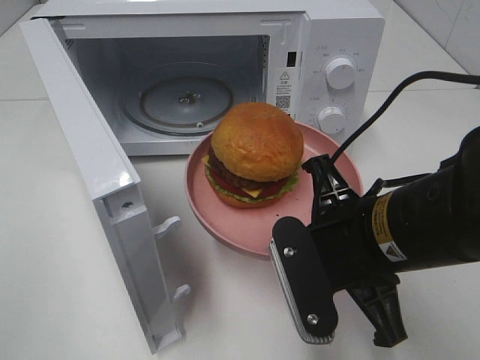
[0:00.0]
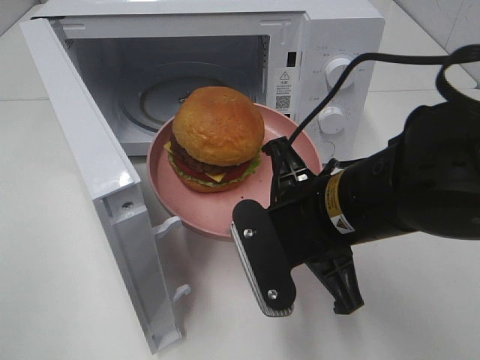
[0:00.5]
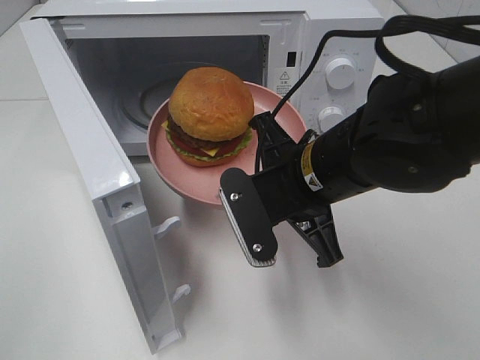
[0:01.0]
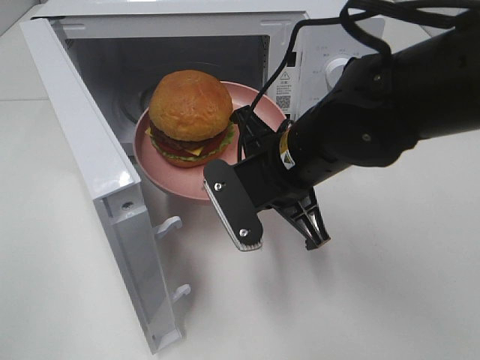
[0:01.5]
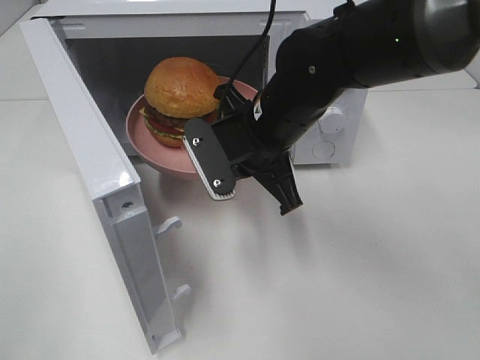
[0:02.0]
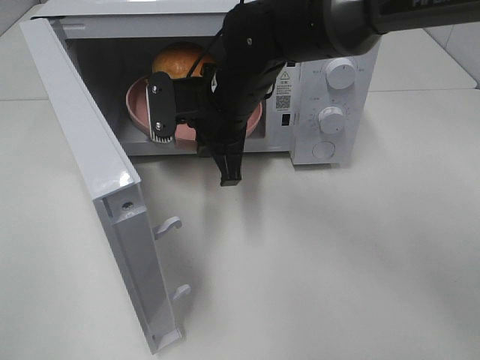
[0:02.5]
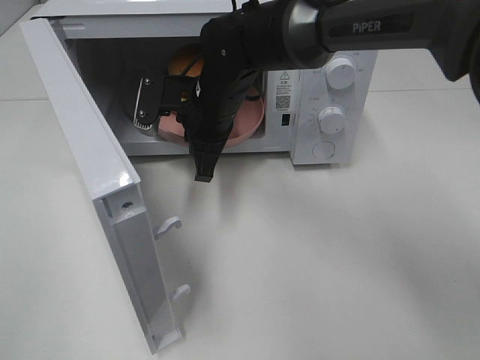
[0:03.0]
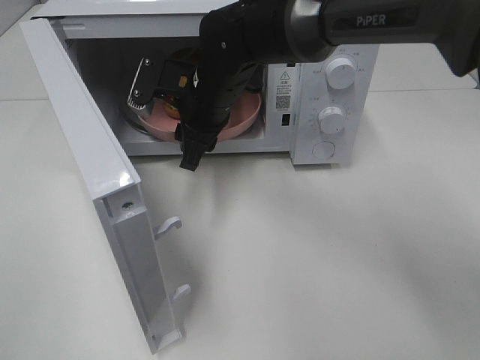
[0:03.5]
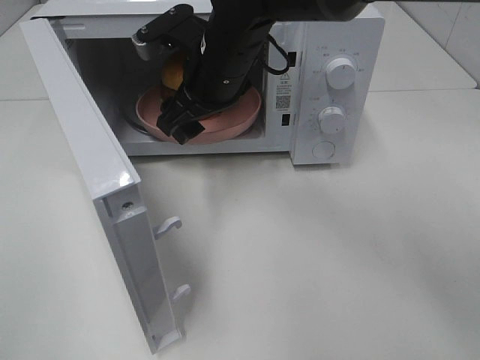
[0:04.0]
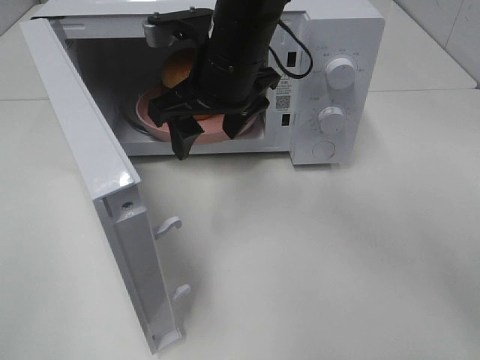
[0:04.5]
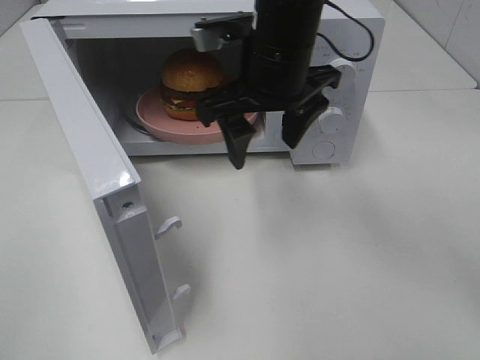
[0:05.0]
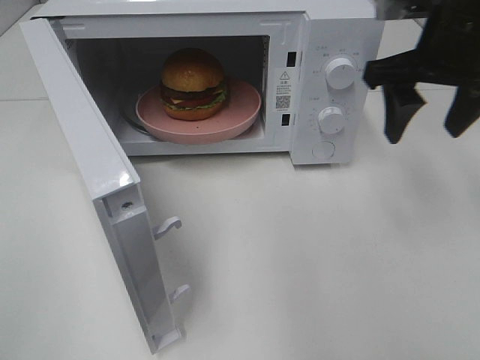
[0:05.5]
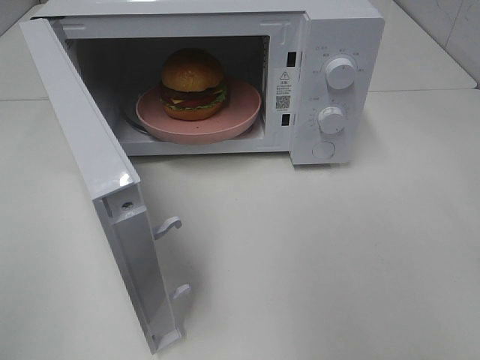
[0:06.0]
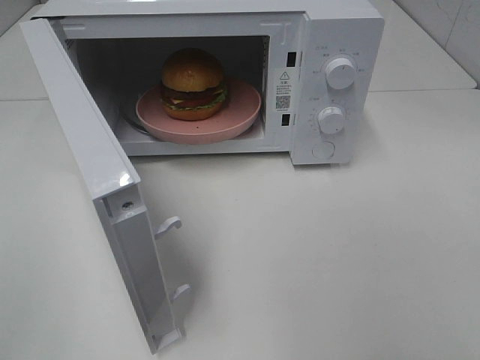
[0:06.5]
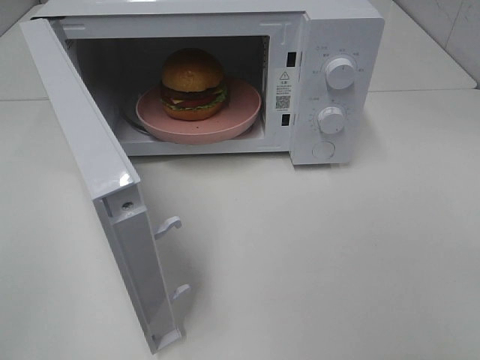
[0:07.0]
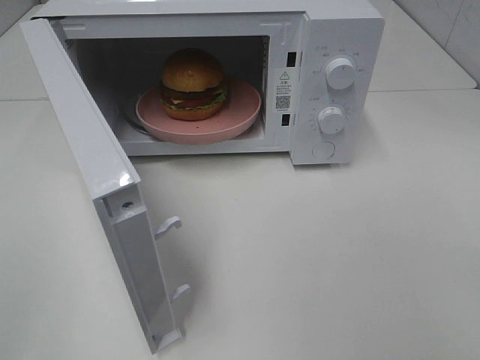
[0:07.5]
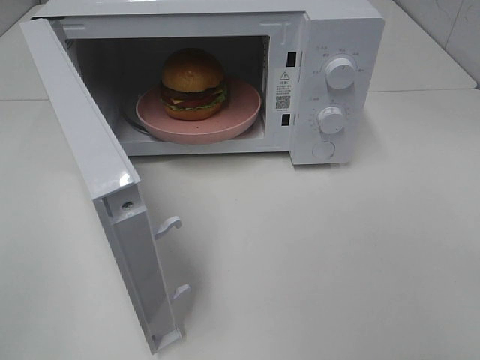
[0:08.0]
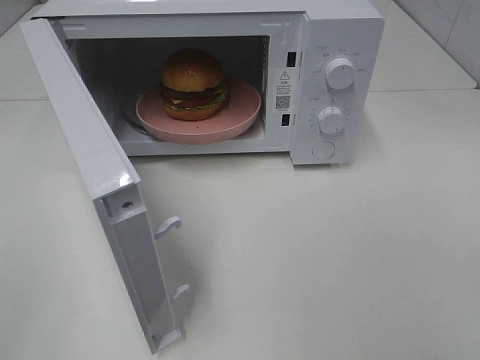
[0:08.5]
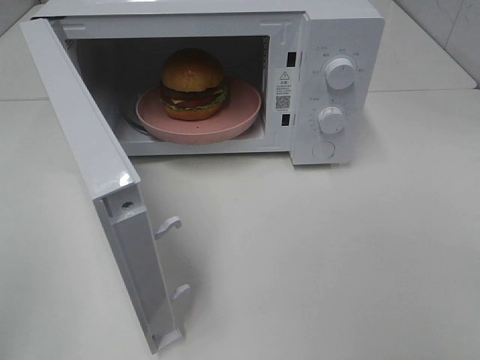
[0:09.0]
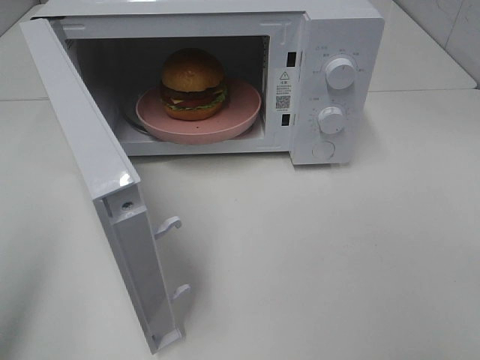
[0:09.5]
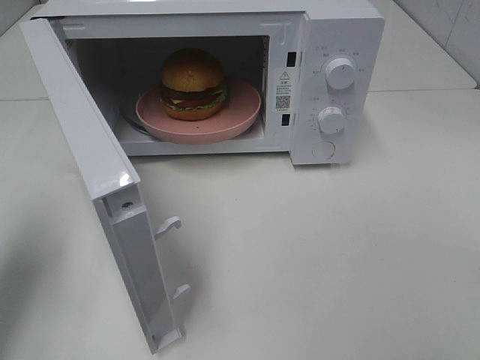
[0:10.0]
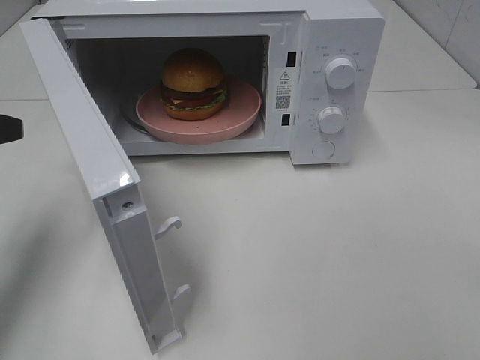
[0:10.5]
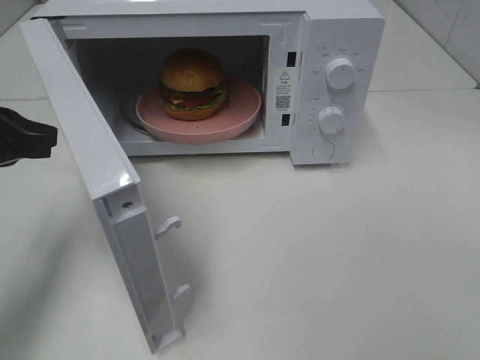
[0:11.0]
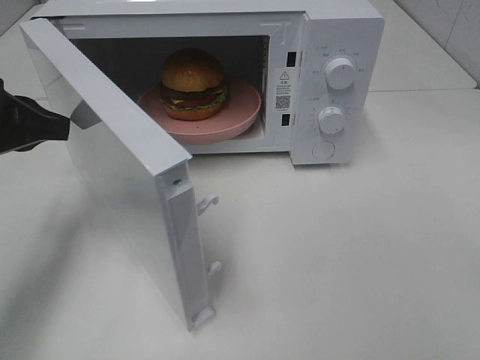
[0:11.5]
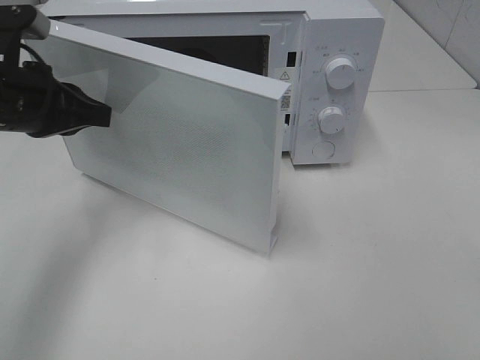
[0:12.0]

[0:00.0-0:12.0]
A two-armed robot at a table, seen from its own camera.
Task of the whole recording: Heat the burger.
Step, 0:00.0 to 0:03.0: Right hand: place the plate in the microwave.
0:00.0 to 0:02.0: The right gripper travels forward and to the left by about 15 cm.
0:02.0 to 0:04.0: The right gripper shifts some 10 cm forward and to the left, and opens.
0:04.0 to 0:06.0: The right gripper heads to the right, backward and upward, covering roughly 35 cm.
0:08.0 to 0:10.0: The left gripper travels forward by roughly 20 cm.
0:10.0 to 0:12.0: The left gripper heads forward and to the right, covering approximately 15 cm.

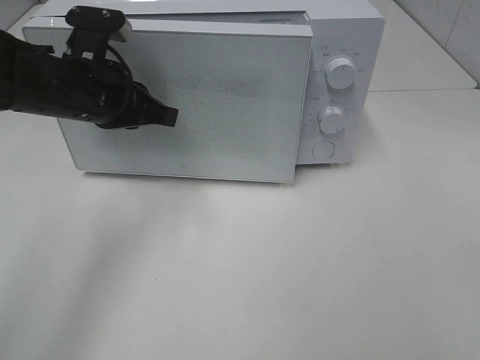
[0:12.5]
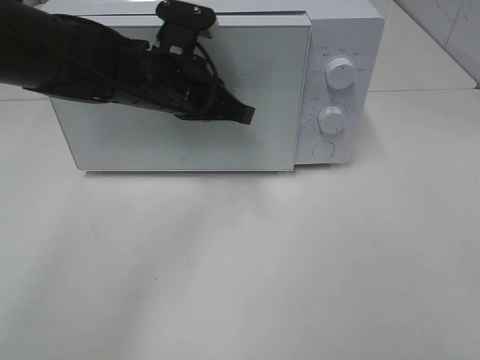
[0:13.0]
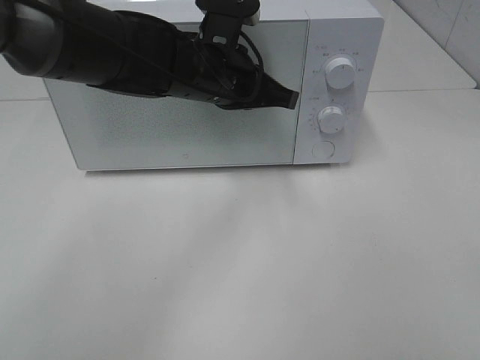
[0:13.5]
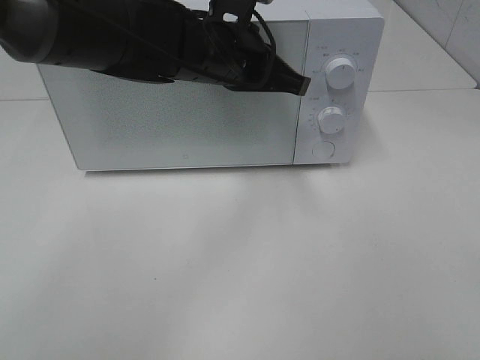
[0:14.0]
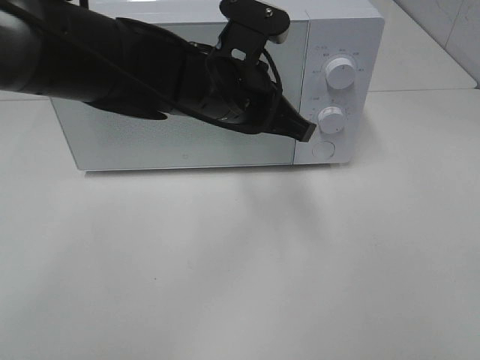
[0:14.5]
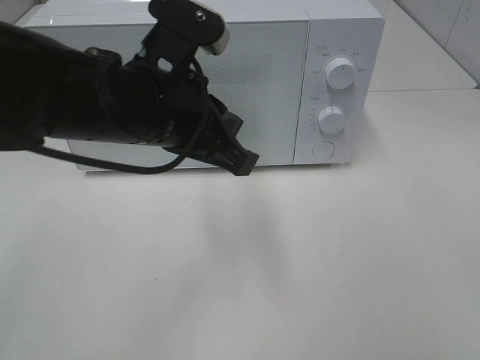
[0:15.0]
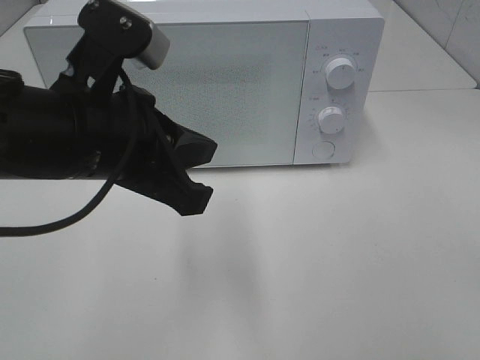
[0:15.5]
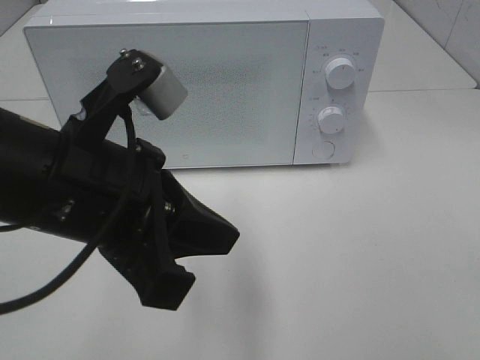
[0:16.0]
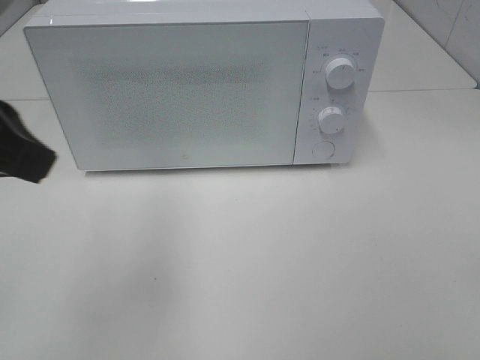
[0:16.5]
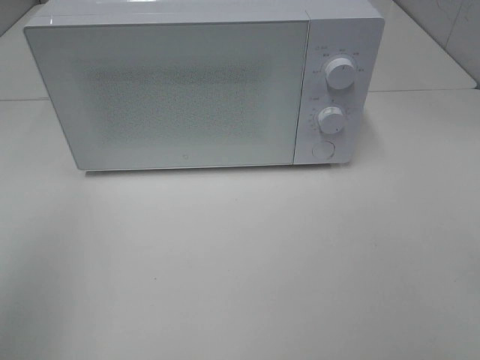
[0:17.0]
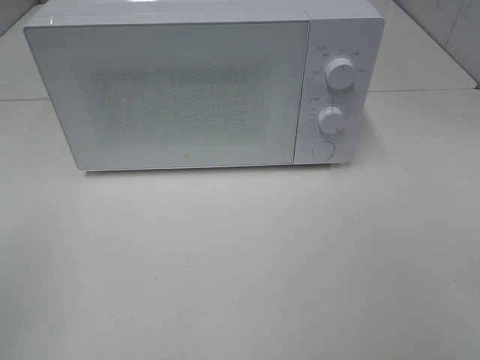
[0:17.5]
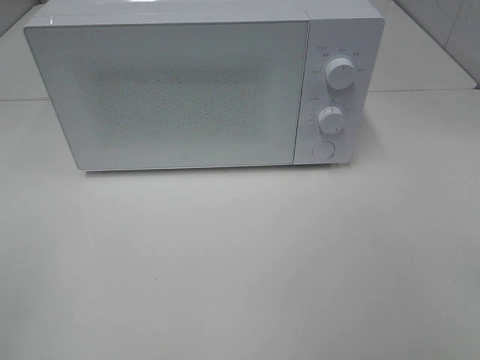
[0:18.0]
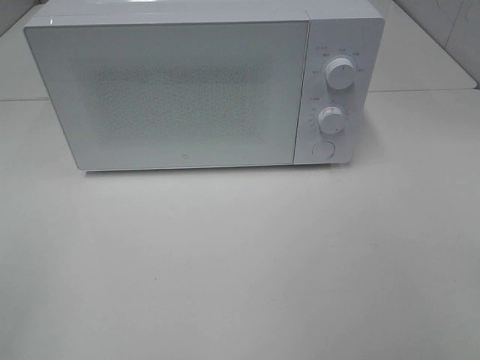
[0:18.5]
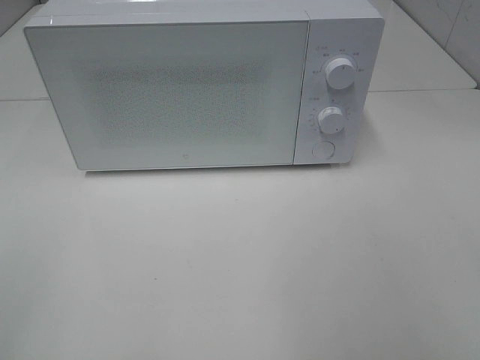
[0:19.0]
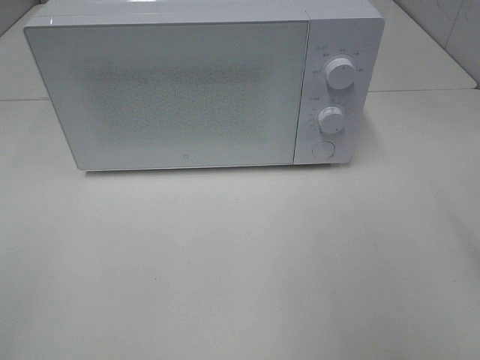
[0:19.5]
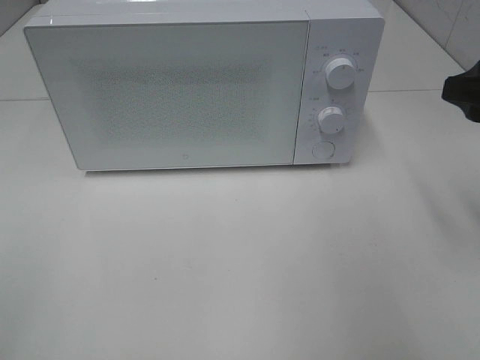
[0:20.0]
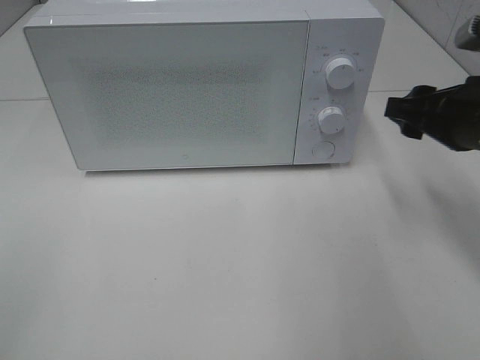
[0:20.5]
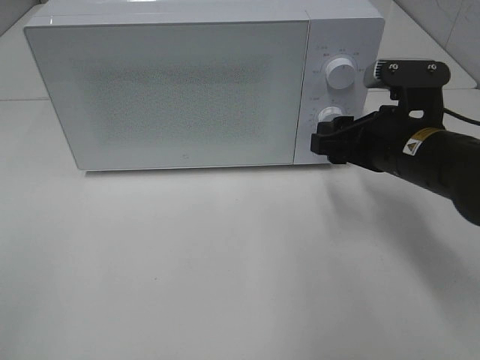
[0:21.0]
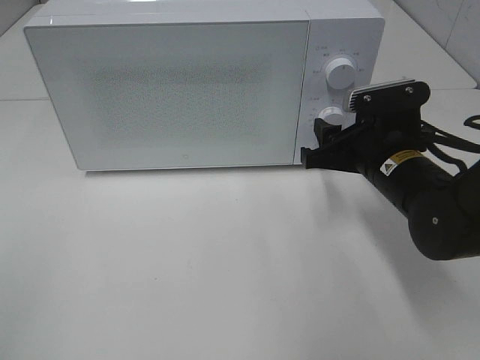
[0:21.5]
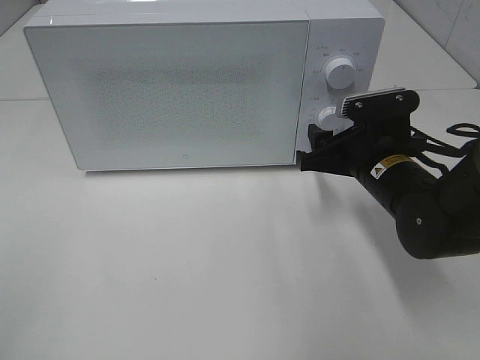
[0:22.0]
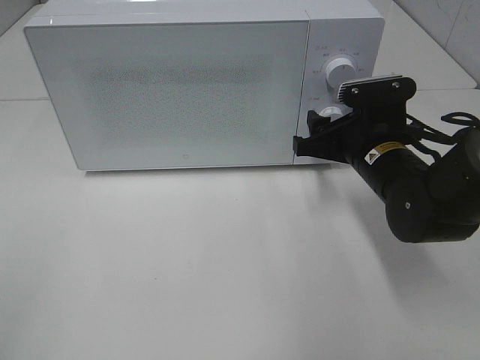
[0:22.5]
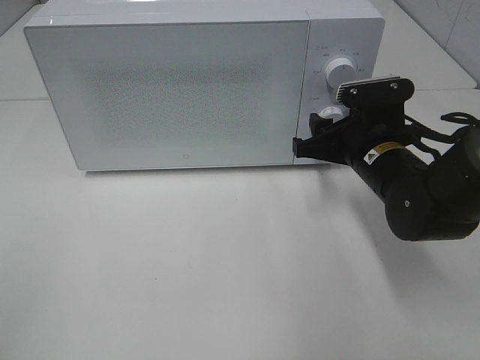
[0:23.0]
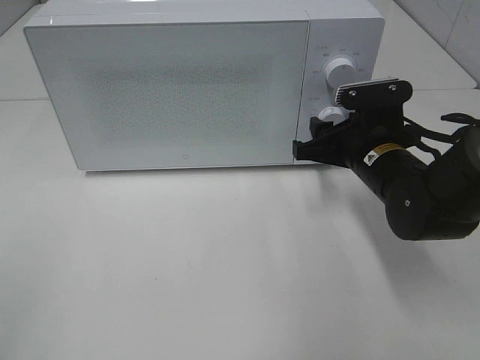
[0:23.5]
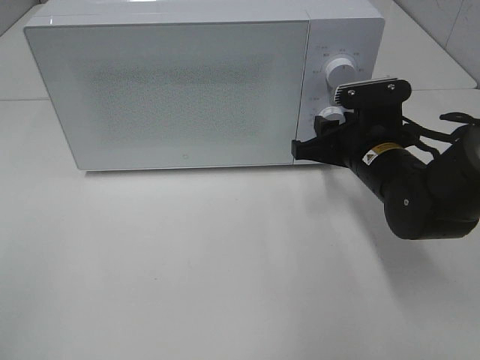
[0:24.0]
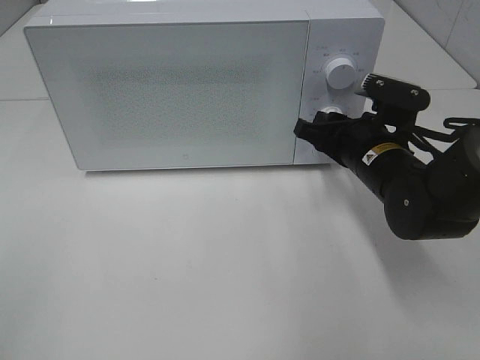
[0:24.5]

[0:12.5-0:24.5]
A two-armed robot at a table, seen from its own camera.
Task of the whole recording: Heat the burger.
0:12.5 to 0:14.5: The left gripper is displaced to the right by about 15 cm.
0:14.5 to 0:16.5: The left gripper is displaced to the left, backward and upward by approximately 25 cm.
0:16.5 to 0:18.5: The left gripper is displaced backward and to the left by approximately 20 cm.
0:18.5 to 0:20.5: The right gripper goes some 25 cm forward.
0:20.5 to 0:22.5: The right gripper moves downward and to the left, about 10 cm.

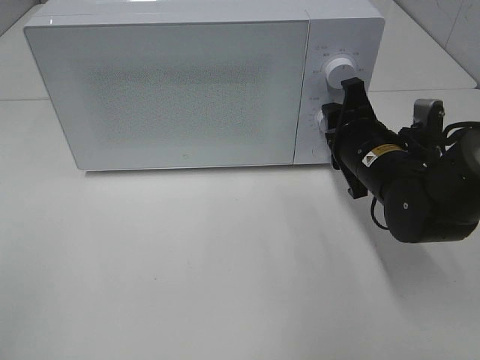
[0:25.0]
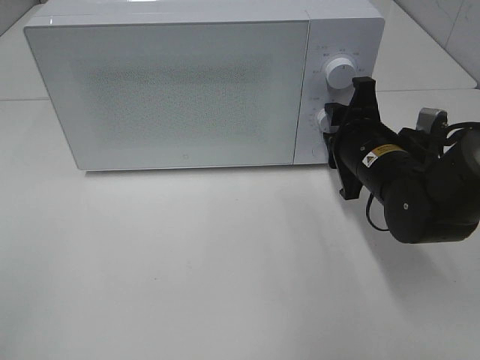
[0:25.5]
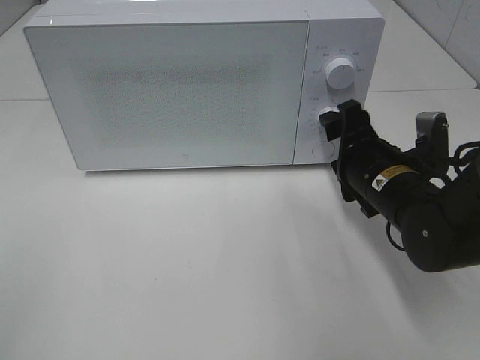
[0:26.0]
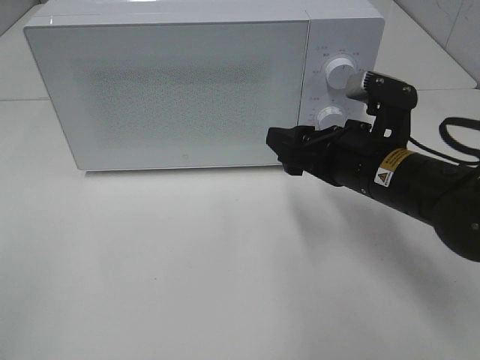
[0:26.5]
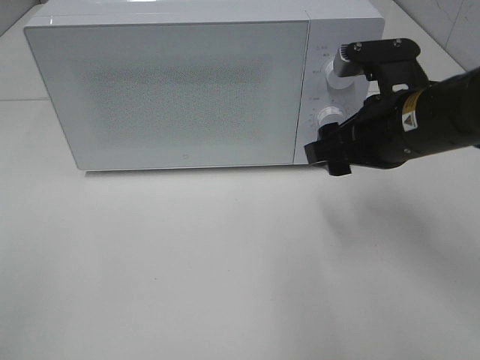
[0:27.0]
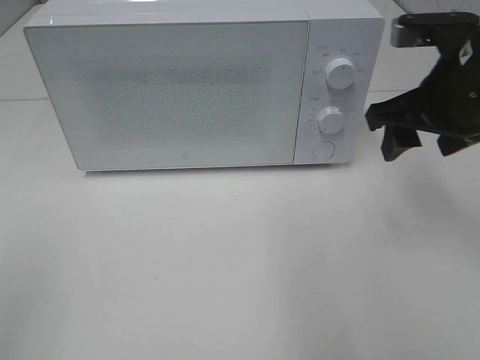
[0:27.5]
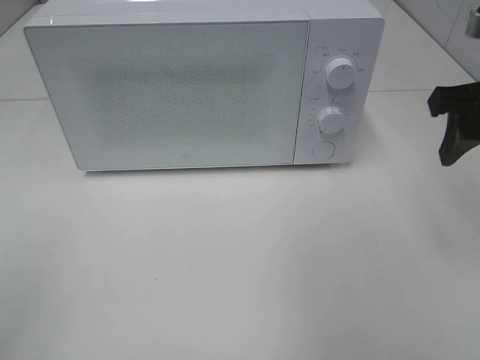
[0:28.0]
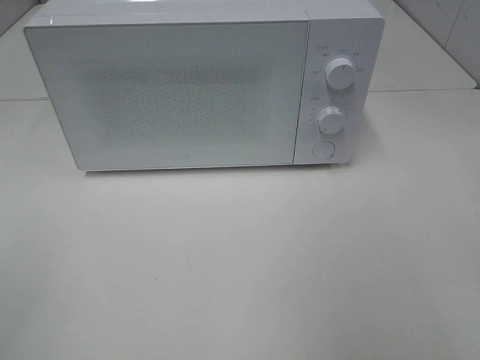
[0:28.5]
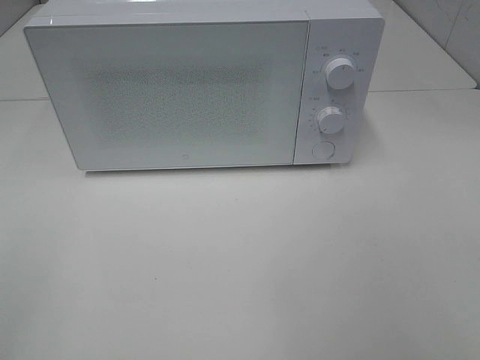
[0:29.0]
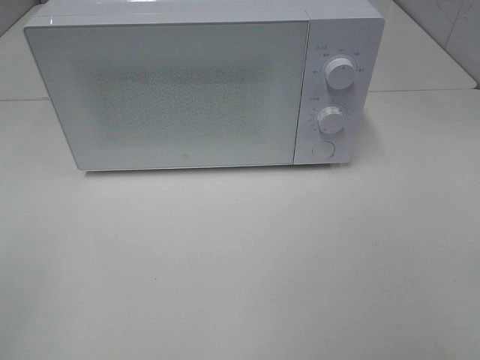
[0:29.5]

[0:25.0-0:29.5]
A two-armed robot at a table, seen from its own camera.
Task of the whole recording: Heat the burger.
0:25.0 to 0:27.0: The right gripper moves upward, approximately 10 cm, and opens.
0:27.0 to 0:29.5: The right gripper travels backward and to the right by some 30 cm.
